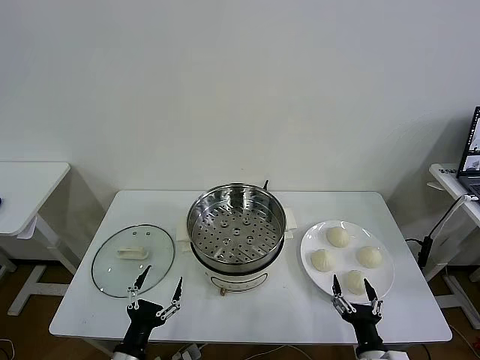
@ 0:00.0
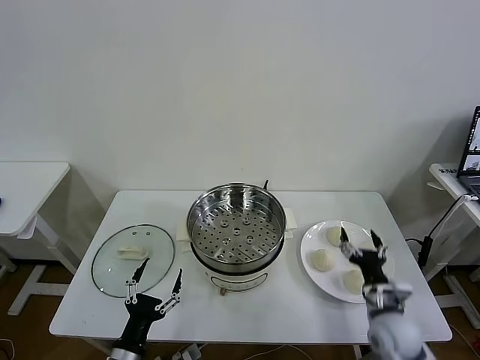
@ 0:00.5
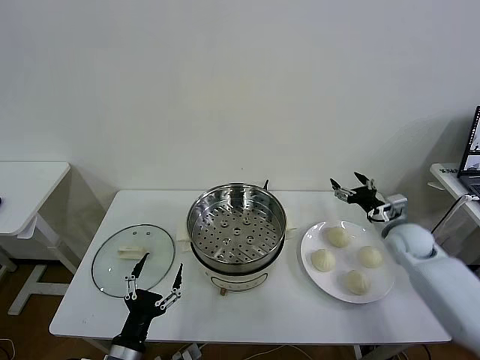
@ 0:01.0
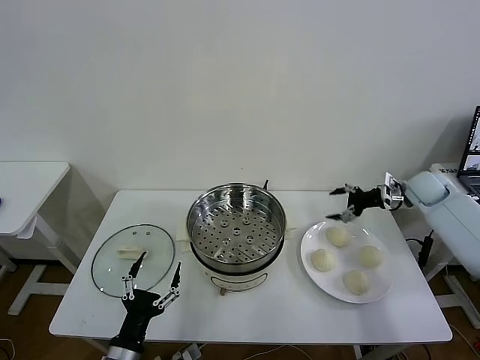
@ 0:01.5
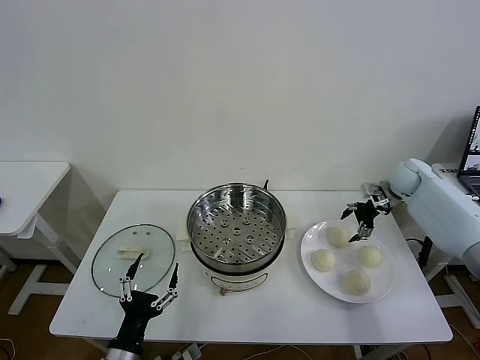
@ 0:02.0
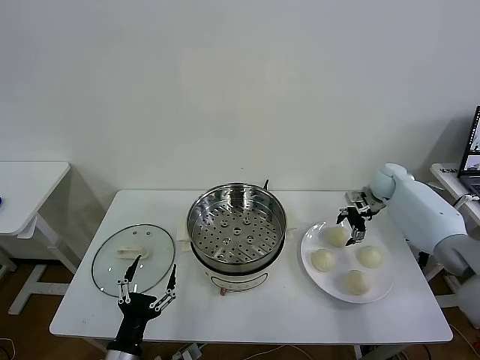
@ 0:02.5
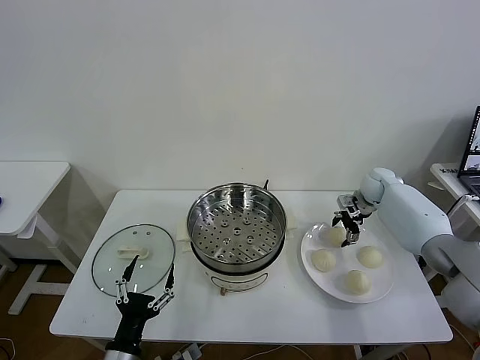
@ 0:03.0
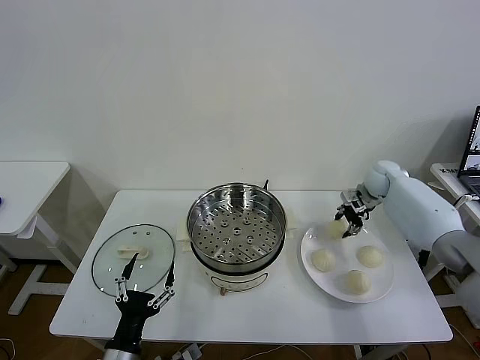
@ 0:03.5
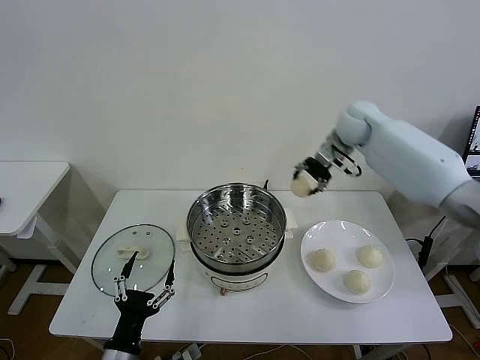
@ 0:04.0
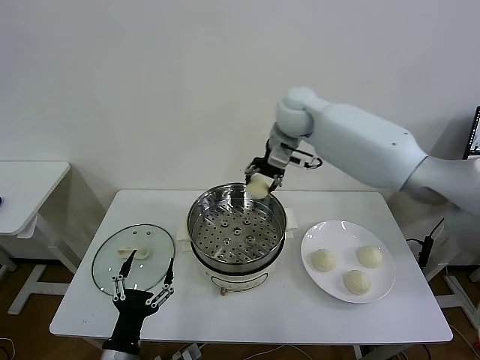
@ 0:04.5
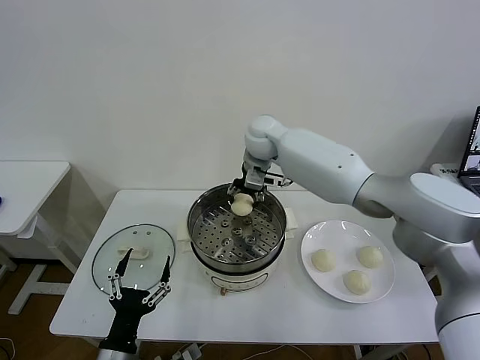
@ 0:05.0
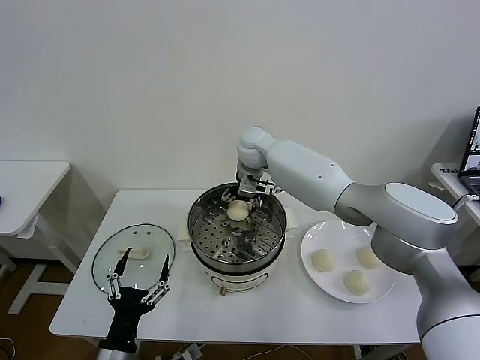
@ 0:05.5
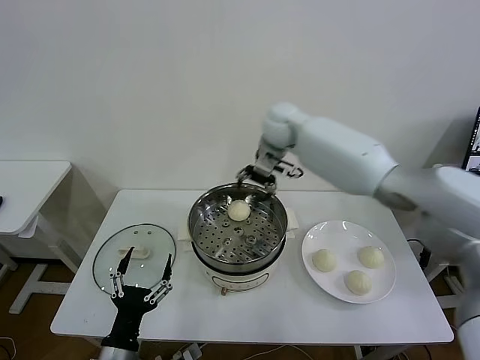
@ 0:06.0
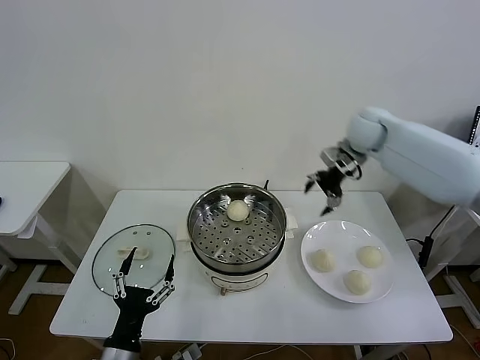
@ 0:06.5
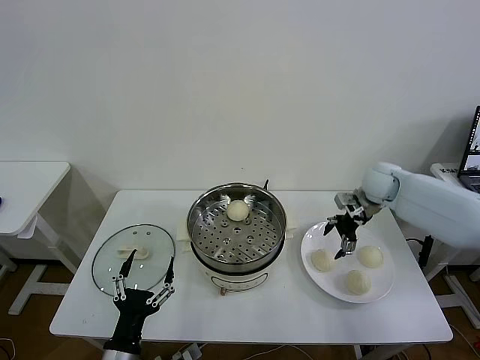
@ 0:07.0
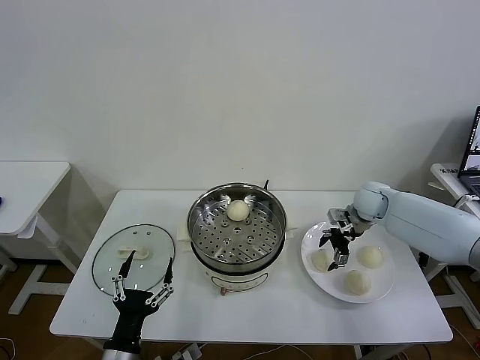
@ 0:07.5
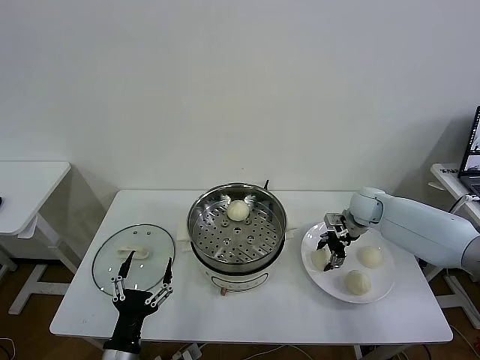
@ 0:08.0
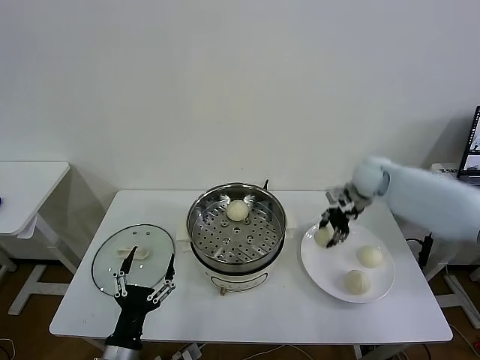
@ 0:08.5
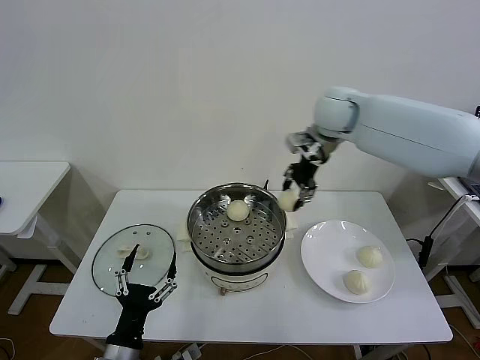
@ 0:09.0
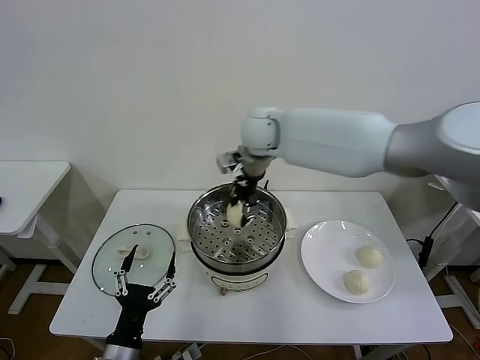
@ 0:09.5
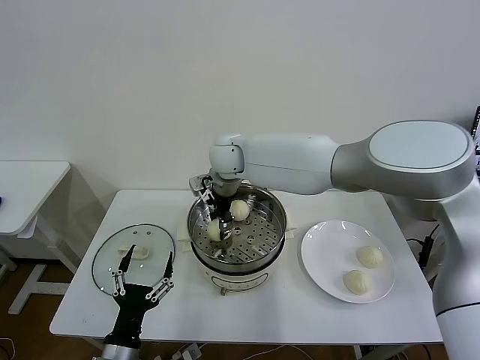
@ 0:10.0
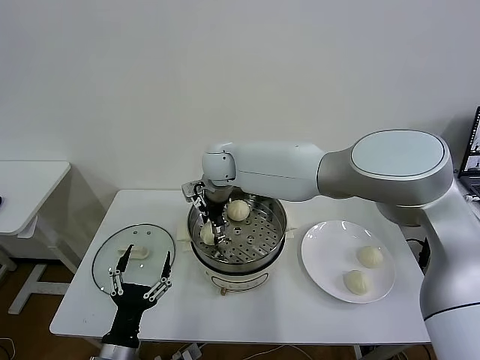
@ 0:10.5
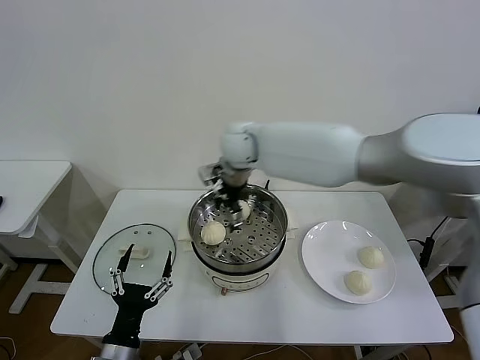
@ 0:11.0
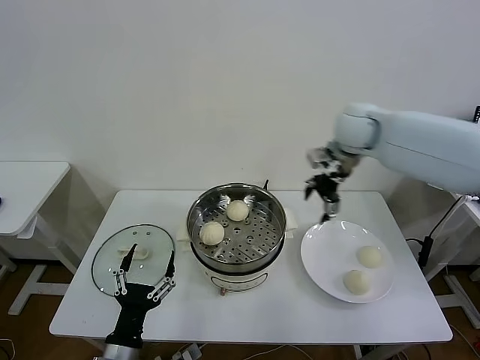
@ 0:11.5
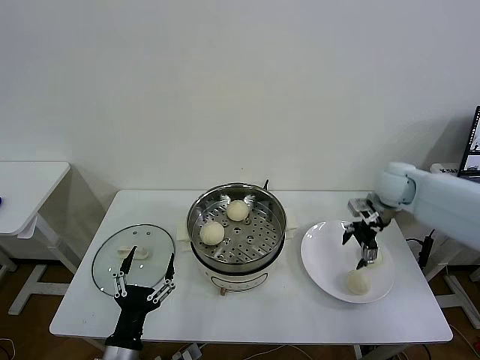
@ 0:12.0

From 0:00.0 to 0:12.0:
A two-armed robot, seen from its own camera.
Task of the whole recording: take steamed baozi put them in steamer then cover it.
Step, from 0:00.0 to 0:03.0: Grasp the baozi in the plate with right gripper.
Step, from 0:03.5 to 0:05.5: Place the baozi on the steamer with right gripper.
Step, from 0:06.0 to 0:08.0: Grasp the baozi in the plate with right gripper.
Step, from 0:08.5 to 0:10.5: Place the baozi on the steamer with right gripper.
From 0:02.0 to 0:04.0: The right gripper shifts roughly 25 cm to the left and upward, and closes up.
From 0:04.0 to 0:06.0: The right gripper moves to the left, approximately 15 cm, and opens.
From 0:06.0 to 0:08.0: The right gripper goes some 30 cm to the right and downward, and closes.
From 0:08.0 to 0:10.0: The right gripper moves to the left and upward, some 40 cm.
From 0:10.0 to 0:12.0: The right gripper heads to the right, covering some 40 cm, and opens up.

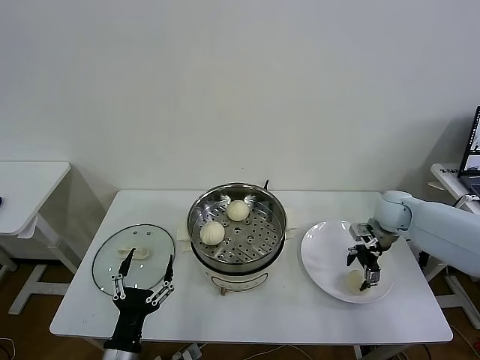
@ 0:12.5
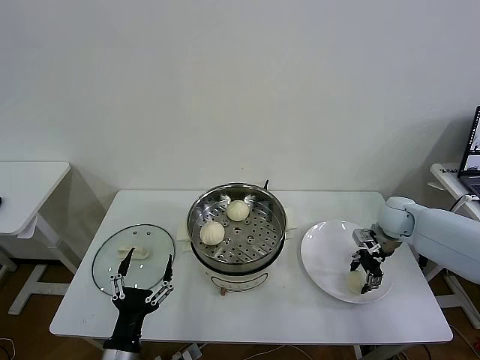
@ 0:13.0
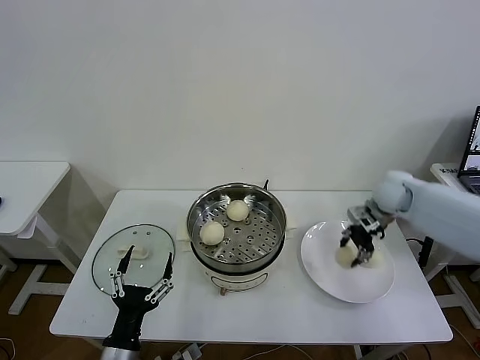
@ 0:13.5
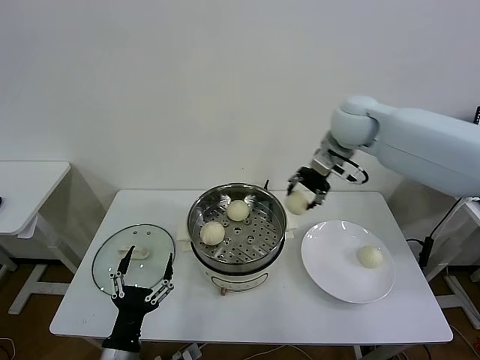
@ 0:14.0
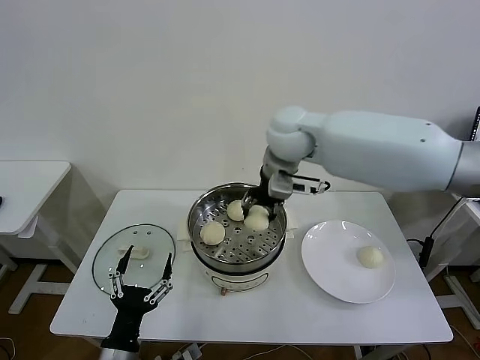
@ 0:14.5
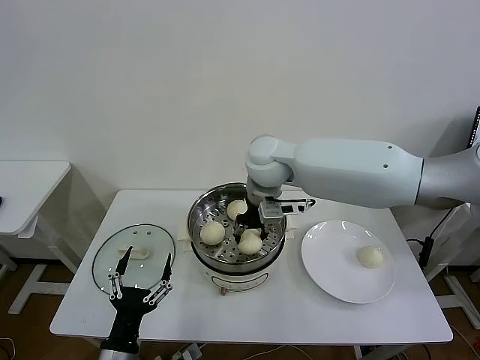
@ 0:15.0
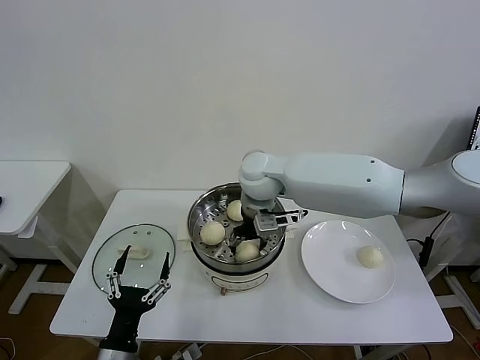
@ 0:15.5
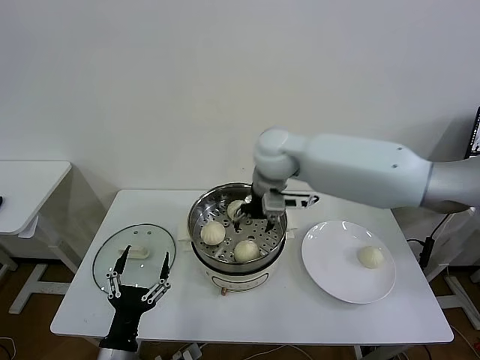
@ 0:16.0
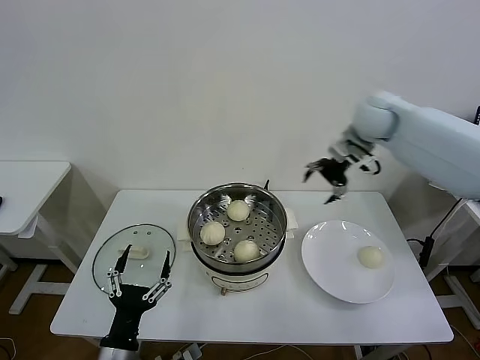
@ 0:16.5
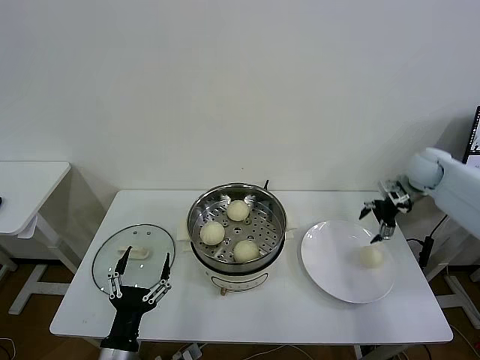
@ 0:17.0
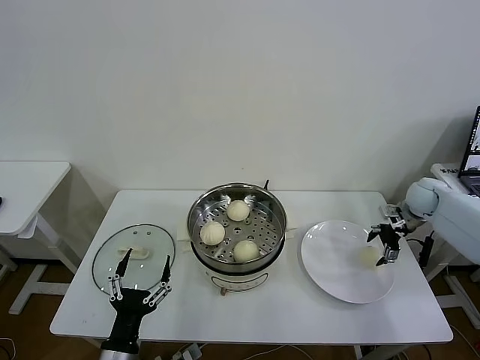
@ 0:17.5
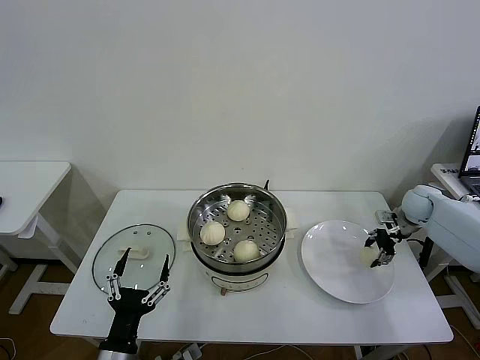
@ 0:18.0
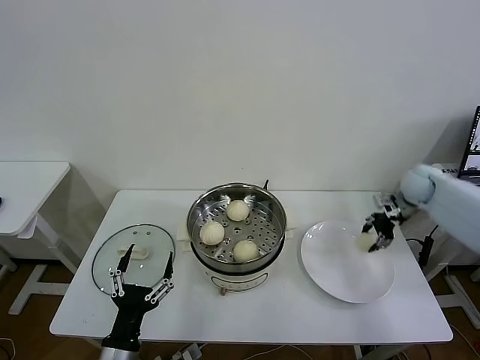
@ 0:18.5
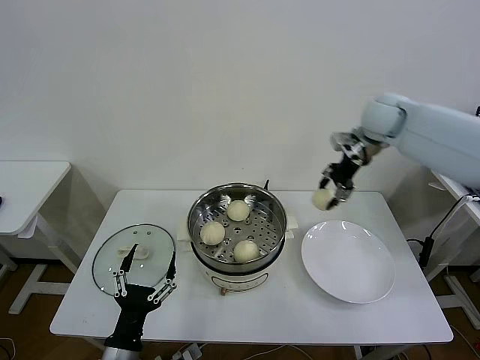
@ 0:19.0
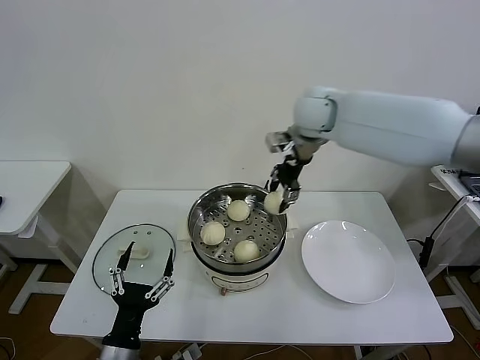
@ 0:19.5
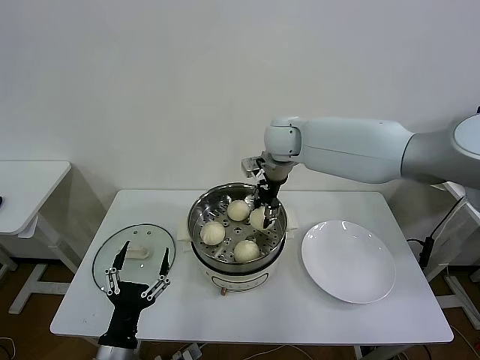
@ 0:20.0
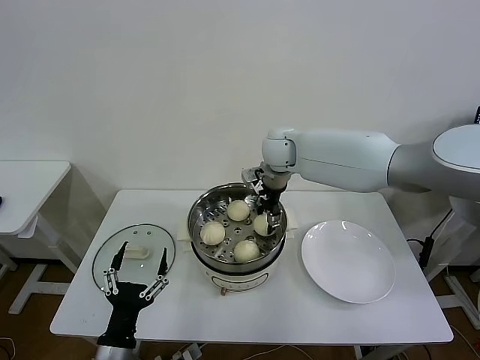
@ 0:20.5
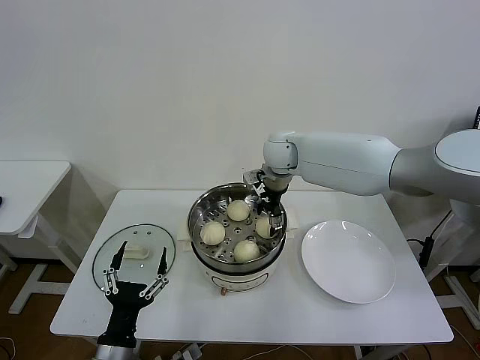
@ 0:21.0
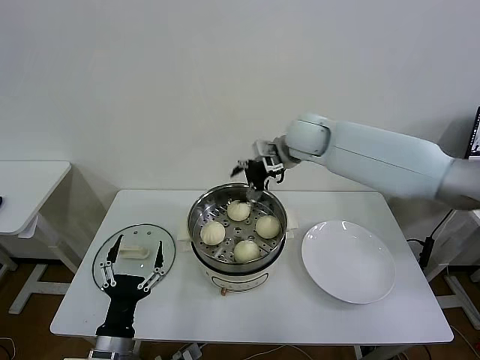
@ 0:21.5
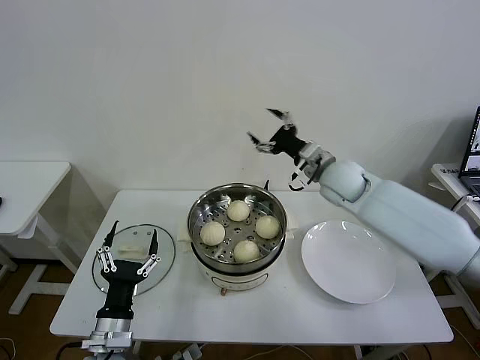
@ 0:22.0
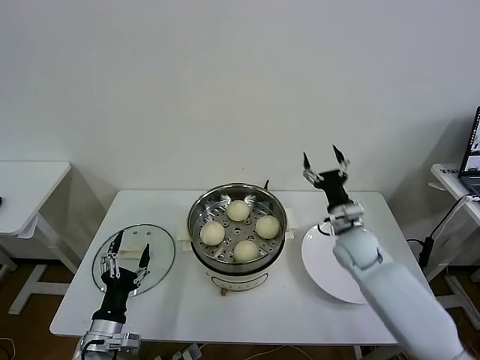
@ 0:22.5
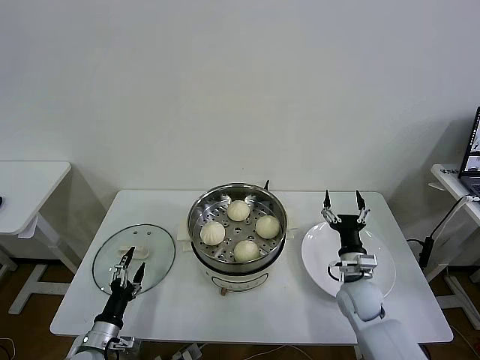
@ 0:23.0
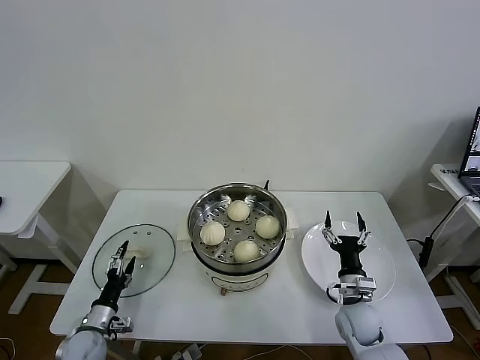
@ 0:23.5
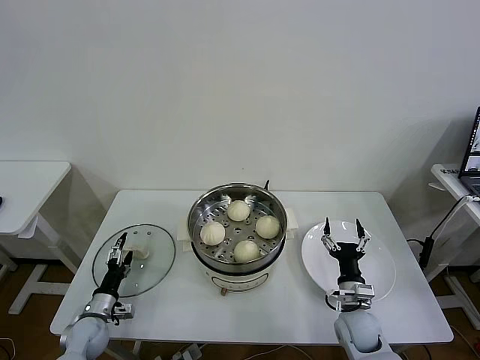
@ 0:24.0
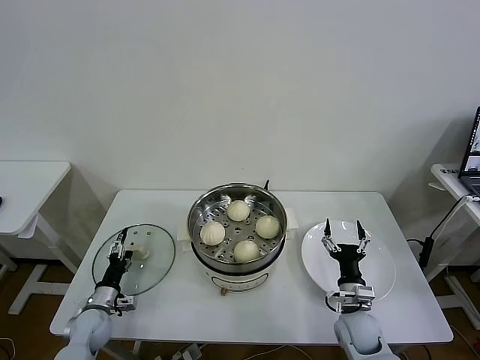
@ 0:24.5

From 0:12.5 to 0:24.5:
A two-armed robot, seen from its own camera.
Task of the whole recording: take steamed baozi put them in steamer then cover it.
Step, from 0:13.5 to 0:15.5: Place the baozi on the steamer with right gripper.
Step, from 0:16.0 to 0:18.0: Grasp the baozi in the plate with right gripper.
Step, from 0:18.5 to 0:20.5: Place the baozi on the steamer with right gripper.
From 0:12.5 to 0:14.5: The right gripper is displaced to the left and upward by about 35 cm, and closes up.
From 0:14.5 to 0:16.5: The right gripper shifts roughly 20 cm to the right, and opens up.
From 0:16.5 to 0:18.5: The right gripper travels downward and to the right by approximately 25 cm, and closes up.
From 0:18.5 to 0:20.5: The right gripper is displaced to the left by some 35 cm.
From 0:20.5 to 0:22.5: The right gripper is displaced to the right, downward and backward by roughly 30 cm, and opens. The left gripper is displaced forward by roughly 5 cm.
From 0:22.5 to 0:24.5: The left gripper shifts approximately 20 cm forward, downward and to the left, while the right gripper moves backward and downward, some 20 cm.

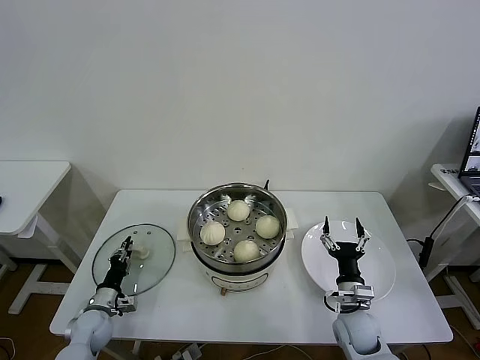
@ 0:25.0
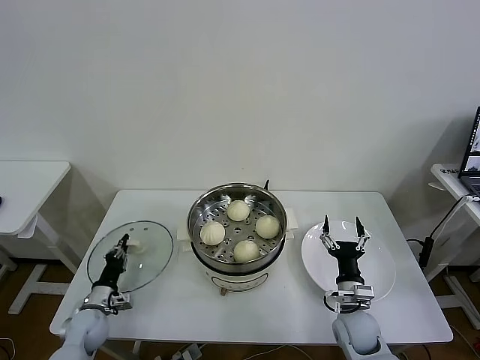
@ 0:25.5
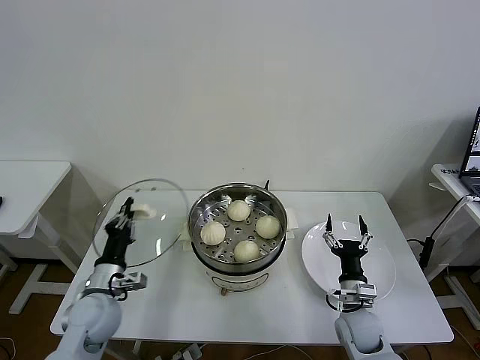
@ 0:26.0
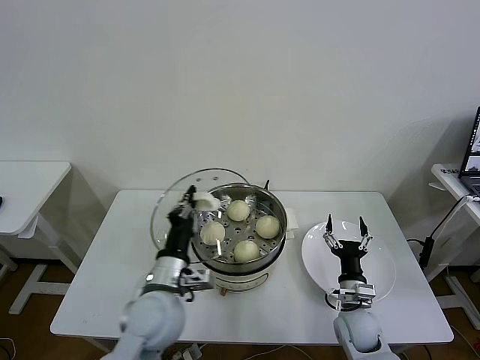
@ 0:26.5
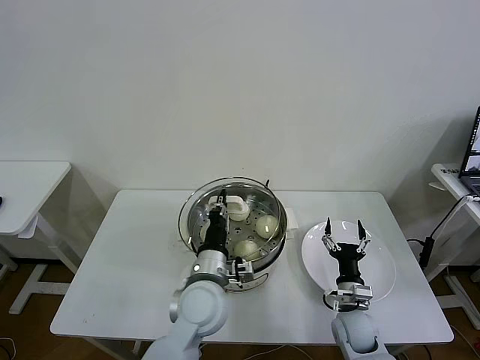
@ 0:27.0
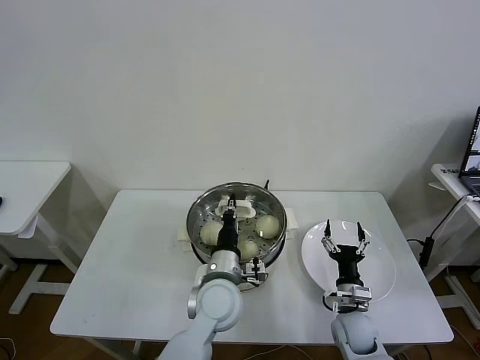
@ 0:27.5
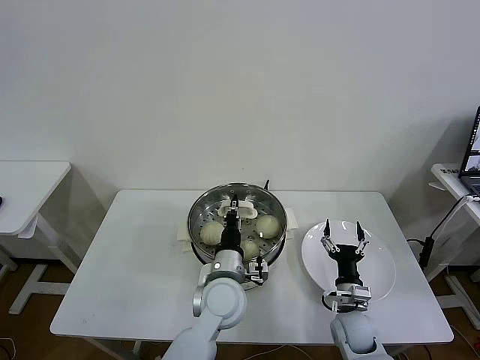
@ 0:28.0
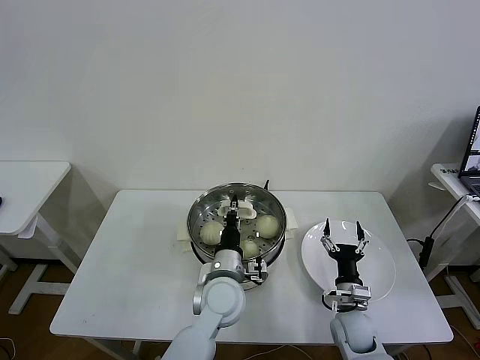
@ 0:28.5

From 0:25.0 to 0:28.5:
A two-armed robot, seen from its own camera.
Task of the whole recording: take steamed baozi put them in steamer then cover it.
From 0:25.0 to 0:27.0: The left gripper shifts approximately 40 cm to the right and upward.
From 0:27.0 to 0:28.5: The left gripper ends up about 5 cm from where it was.
